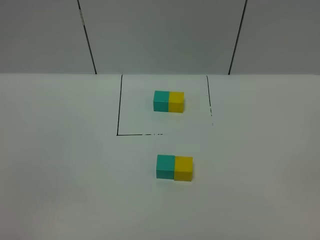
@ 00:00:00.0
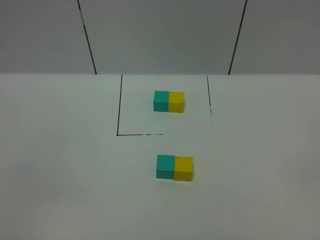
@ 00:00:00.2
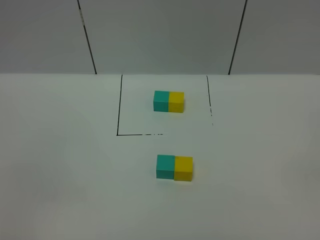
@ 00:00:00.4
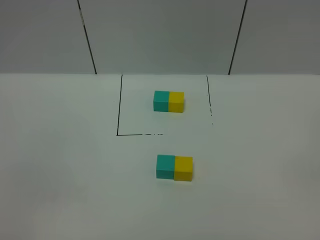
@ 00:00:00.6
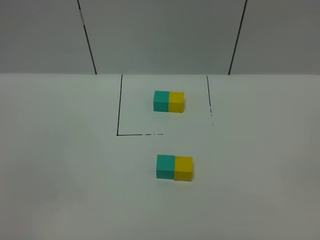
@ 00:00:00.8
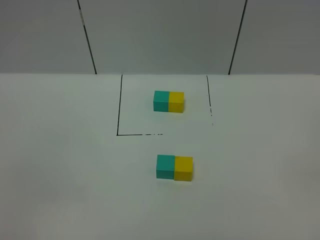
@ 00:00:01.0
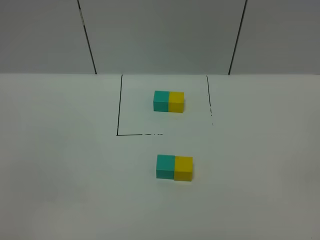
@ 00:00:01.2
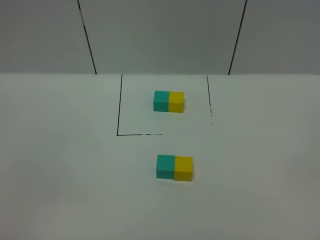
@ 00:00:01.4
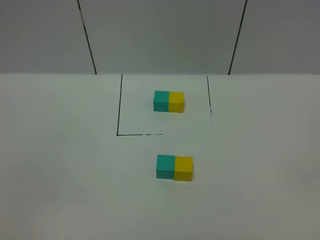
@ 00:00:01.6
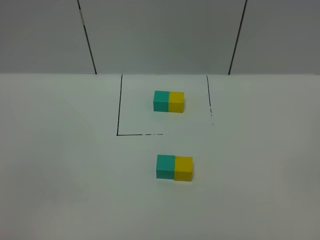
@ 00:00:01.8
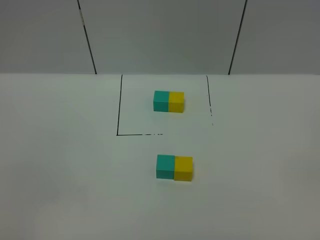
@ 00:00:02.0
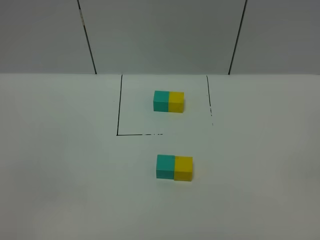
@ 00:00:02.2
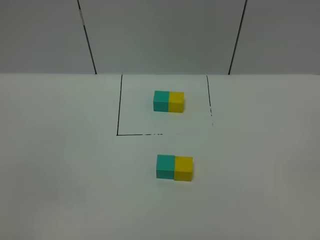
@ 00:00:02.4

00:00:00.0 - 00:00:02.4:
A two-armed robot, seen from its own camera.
Task of the whole recording: According to the building block template in front, assemble the scattered blocks together.
00:00:00.0 - 00:00:01.2: Both grippers stay put.
